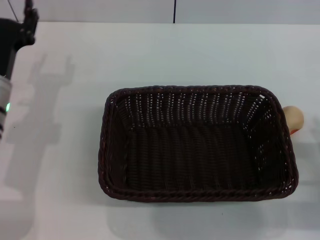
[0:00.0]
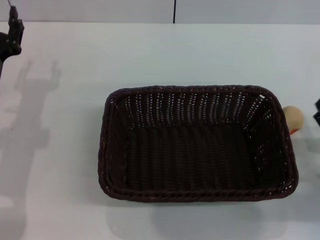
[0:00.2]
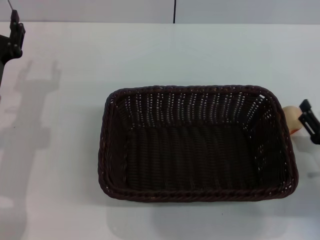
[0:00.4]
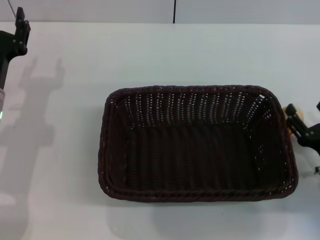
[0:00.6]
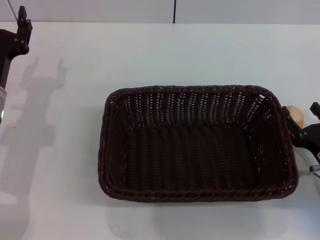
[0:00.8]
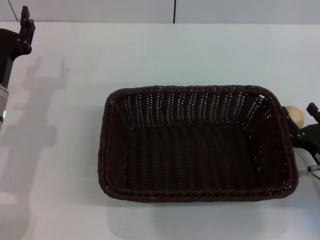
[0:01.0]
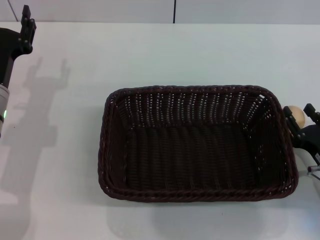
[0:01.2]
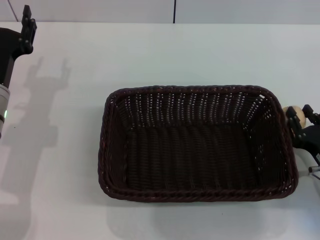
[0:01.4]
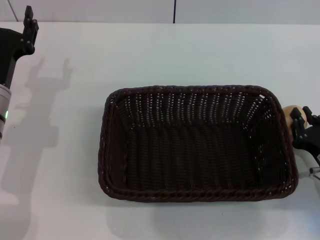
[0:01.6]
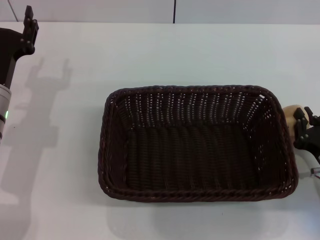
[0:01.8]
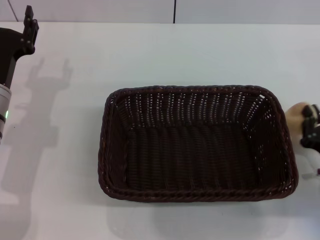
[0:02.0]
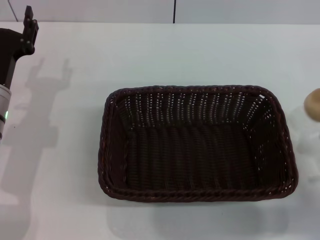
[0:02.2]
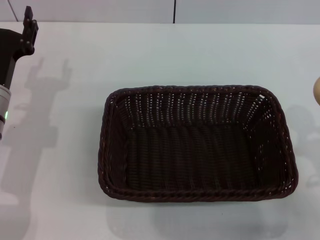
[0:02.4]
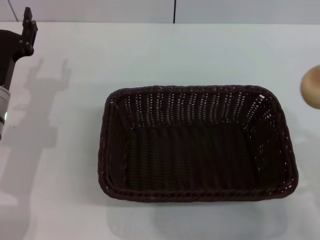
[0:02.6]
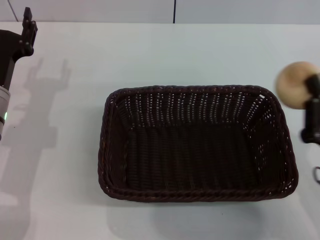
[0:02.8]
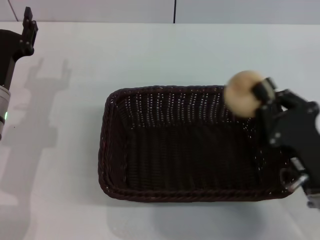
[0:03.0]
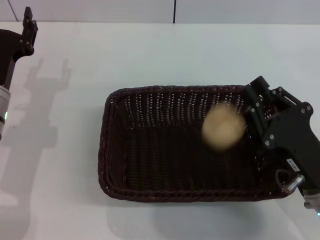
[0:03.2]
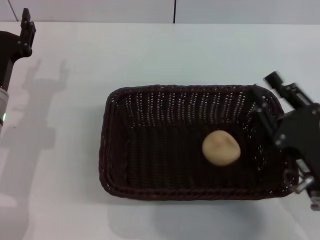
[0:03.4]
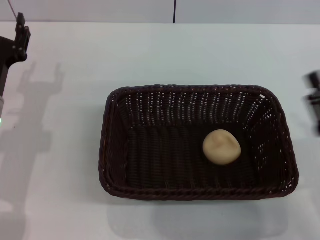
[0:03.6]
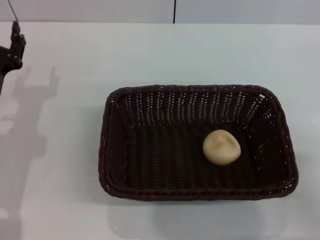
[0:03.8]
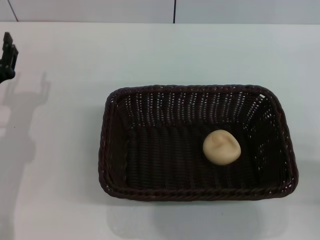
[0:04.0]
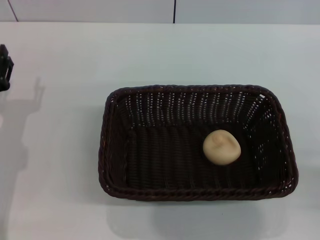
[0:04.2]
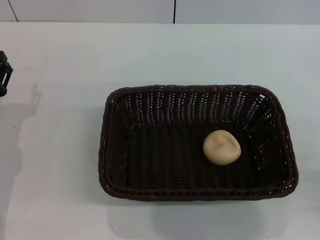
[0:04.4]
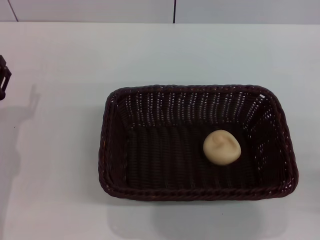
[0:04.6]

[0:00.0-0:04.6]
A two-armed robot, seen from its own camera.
Step, 0:00.0 to 0:02.0: Pick up the egg yolk pastry with the right gripper.
Step, 0:02.4 to 0:03.2: Place the egg yolk pastry into the basket with the right gripper.
0:00.0 to 0:01.6: The right gripper closes up.
0:01.6 to 0:03.0: The right gripper shifts roughly 10 cm to the left and upward, and closes its fingers.
0:03.0 to 0:04.6: The right gripper heads to the right and backward, covering roughly 15 cm, and opens, while the left gripper travels backward by some 5 cm.
